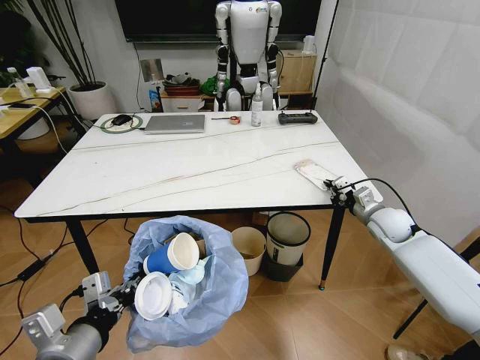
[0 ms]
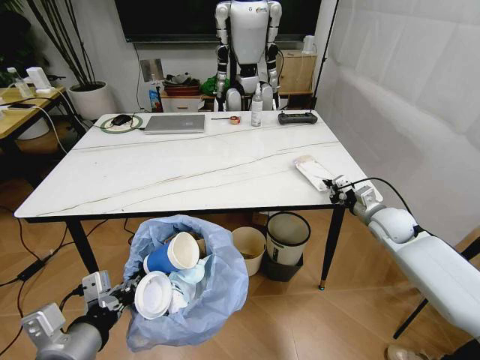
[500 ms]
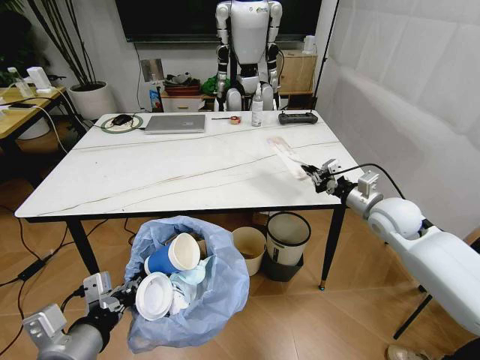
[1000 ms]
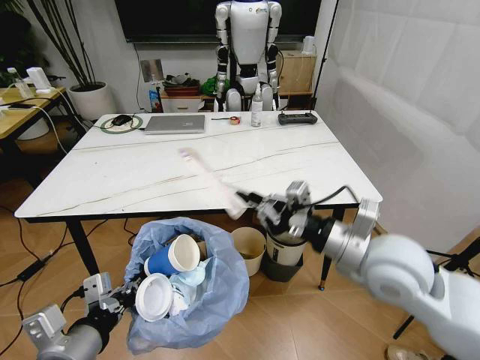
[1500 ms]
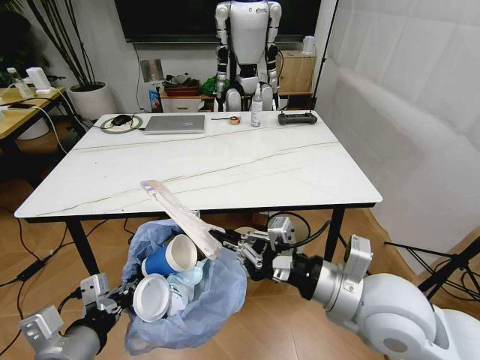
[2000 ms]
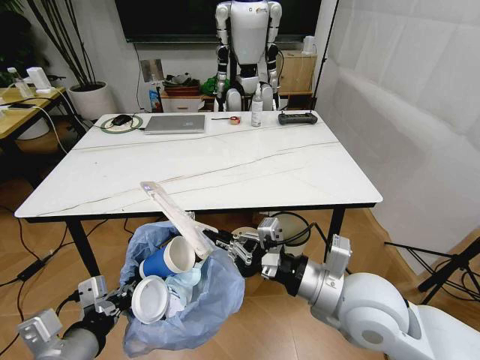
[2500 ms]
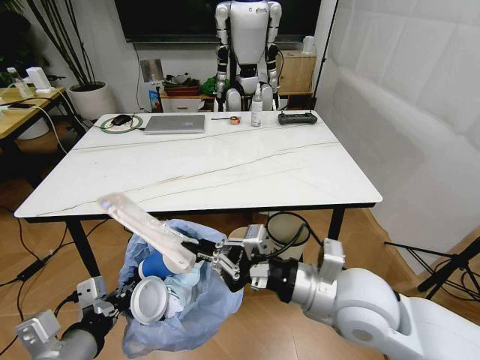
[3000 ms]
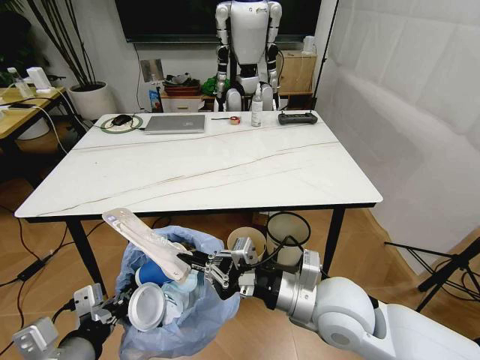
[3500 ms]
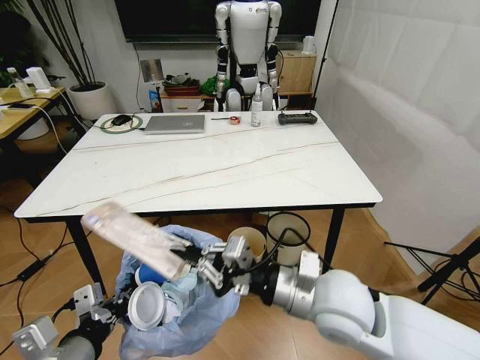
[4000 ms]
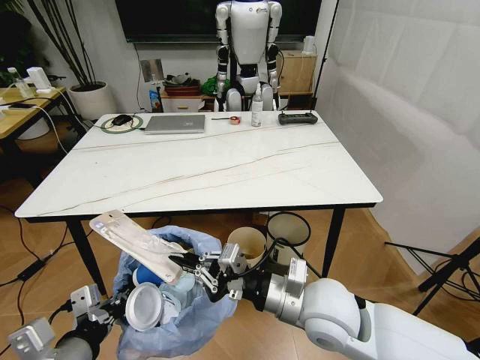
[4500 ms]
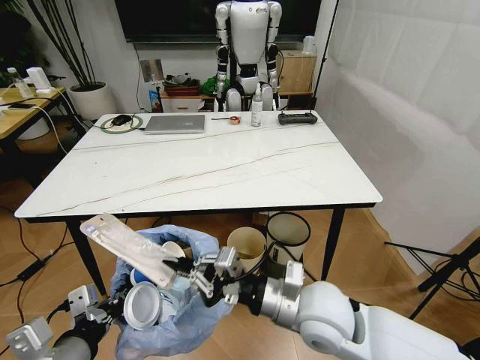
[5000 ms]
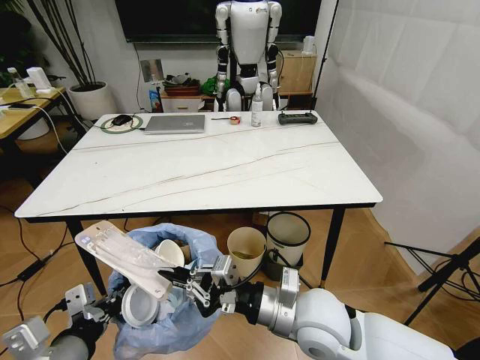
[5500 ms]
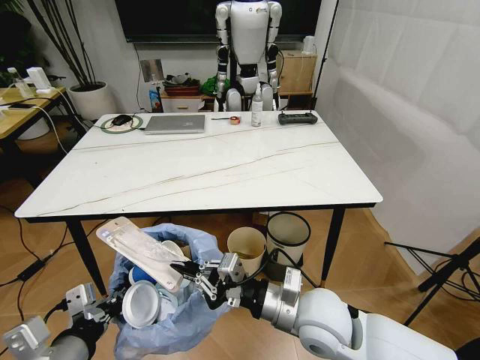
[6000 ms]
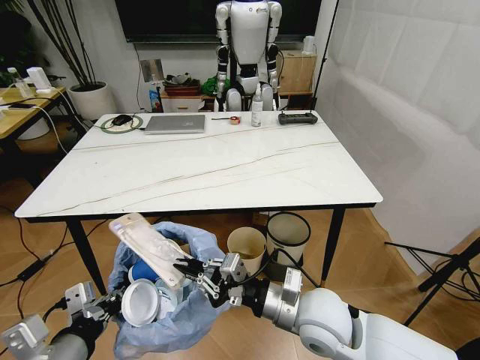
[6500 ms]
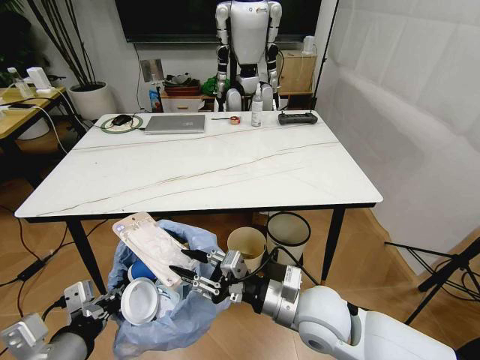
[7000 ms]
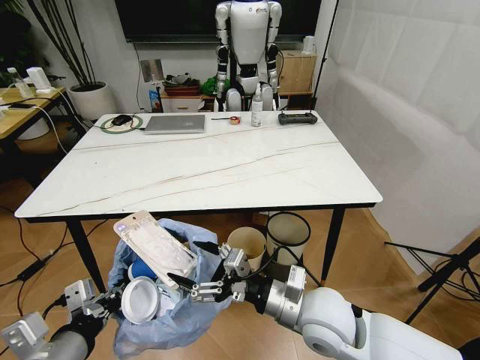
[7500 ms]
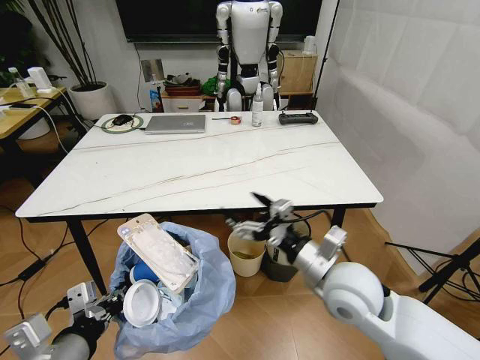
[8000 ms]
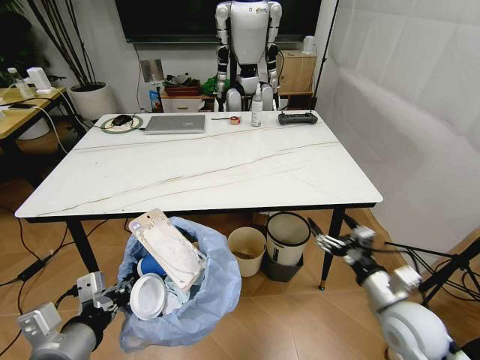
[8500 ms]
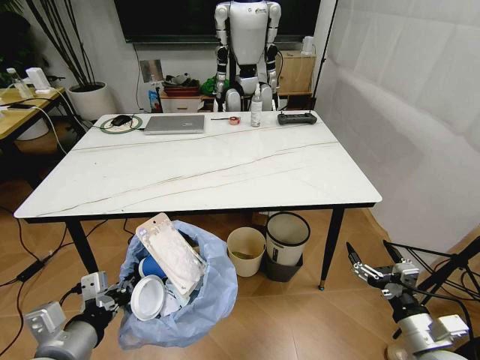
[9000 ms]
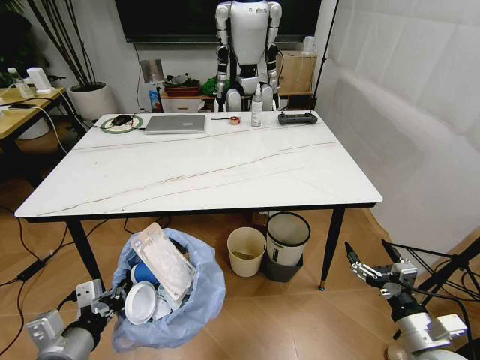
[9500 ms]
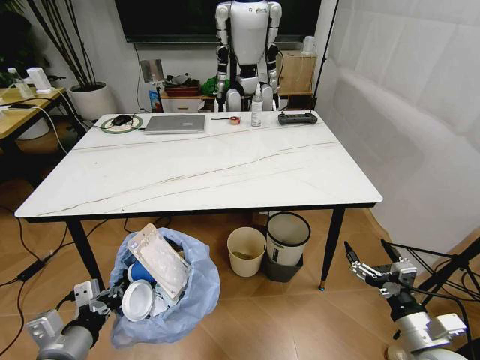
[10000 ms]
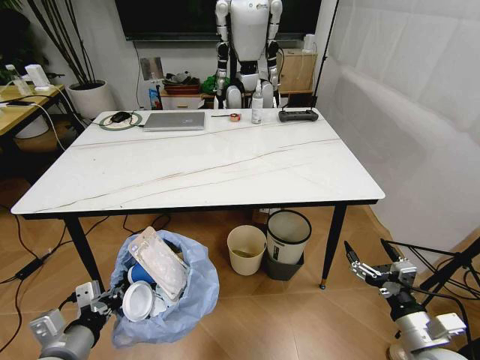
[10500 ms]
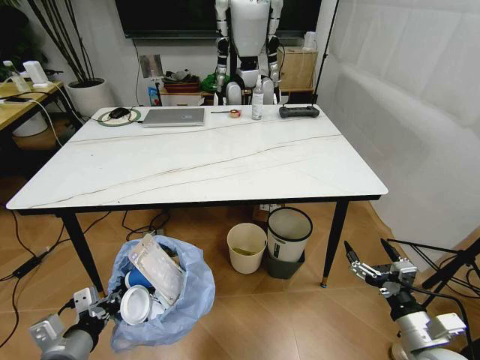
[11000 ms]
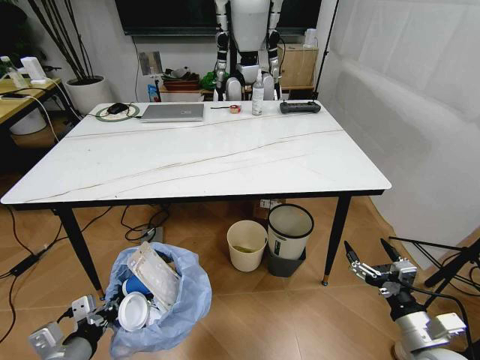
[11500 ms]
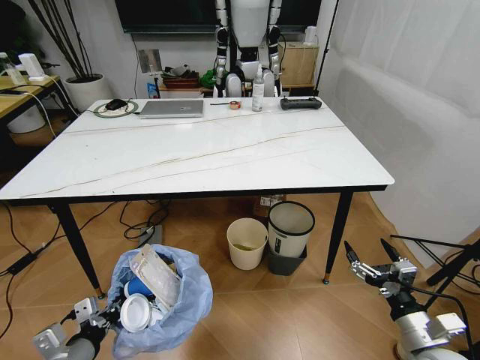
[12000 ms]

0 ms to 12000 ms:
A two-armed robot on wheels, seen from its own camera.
Task of the whole recording: Pick up the trash bin and place the trash from the table into it.
0 ms to 2000 ms: The right gripper goes approximately 35 cm backward, to the left and upward.
2000 ms to 4000 ms: The right gripper heads to the left, covering about 5 cm.
4000 ms to 6000 ms: The right gripper goes some 5 cm downward.
6000 ms to 8000 ms: The right gripper goes about 5 cm to the right, and opens its fingers.
8000 ms to 10000 ms: The left gripper is displaced downward by about 10 cm, while the right gripper is displaced to the right, downward and backward by about 25 cm.
10000 ms to 12000 ms: The left gripper goes roughly 5 cm downward.

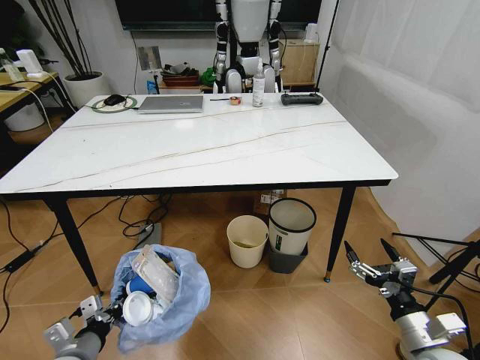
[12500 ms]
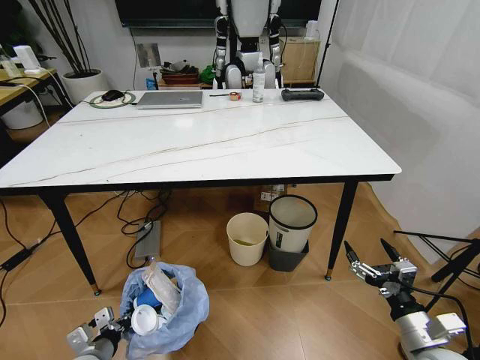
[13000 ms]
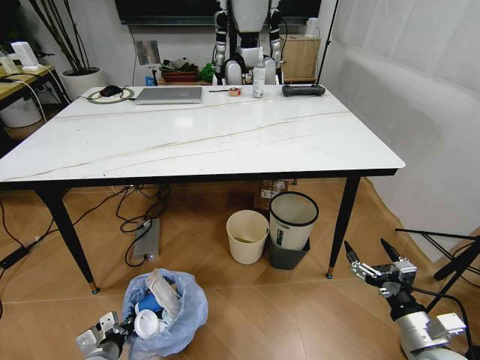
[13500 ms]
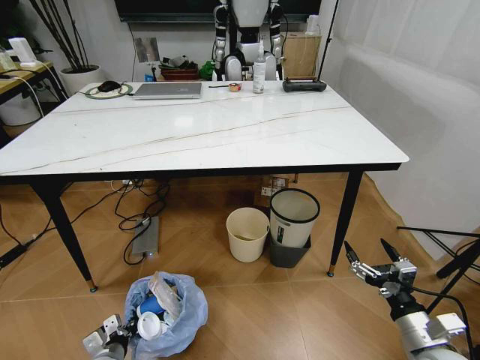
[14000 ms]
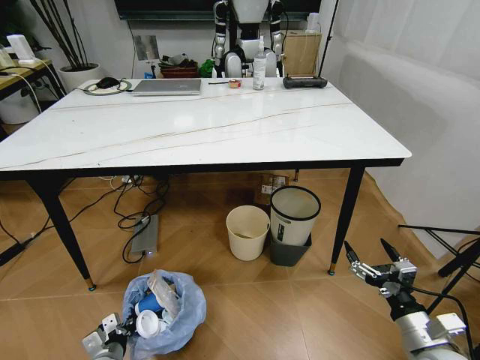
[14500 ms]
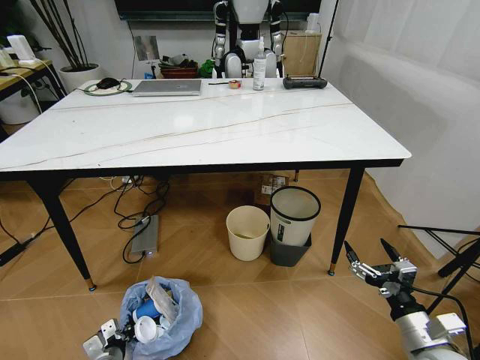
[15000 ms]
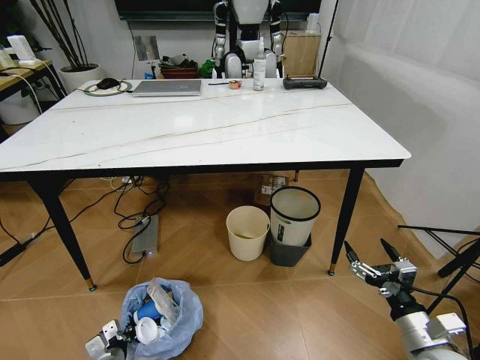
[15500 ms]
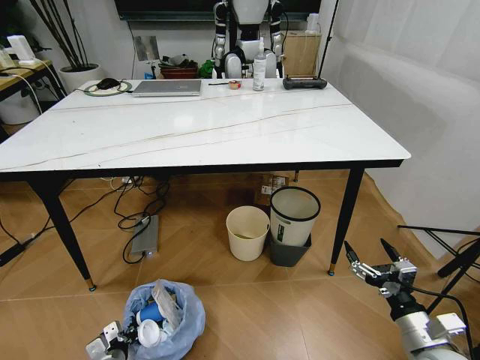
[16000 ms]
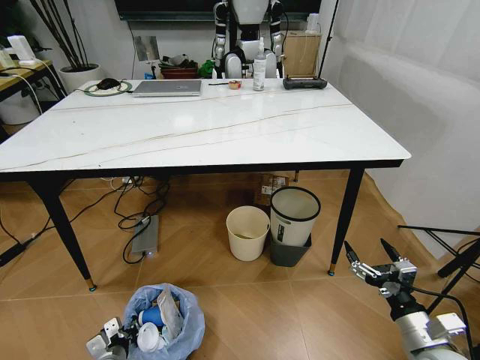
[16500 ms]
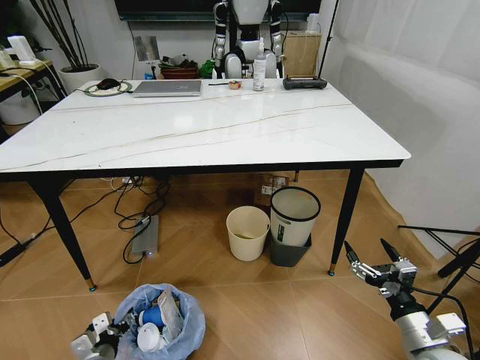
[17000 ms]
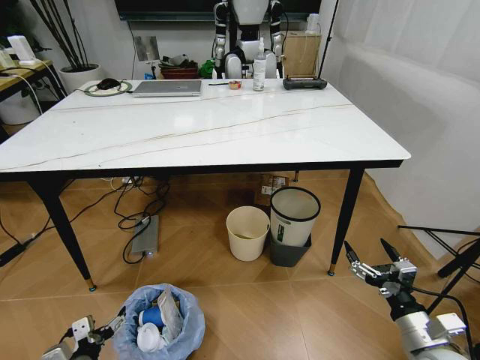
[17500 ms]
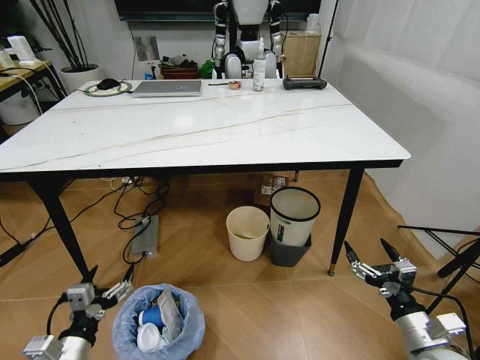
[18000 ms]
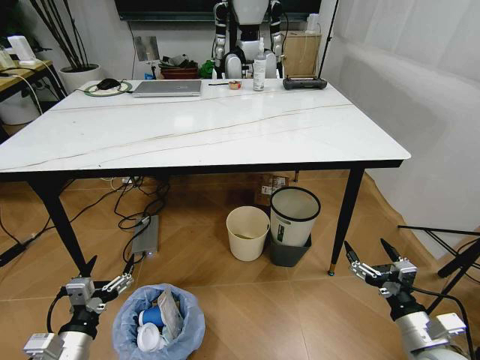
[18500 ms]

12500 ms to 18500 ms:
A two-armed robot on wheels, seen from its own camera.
Task of the whole recording: Pick up the trash bin and place the trash from the table into it.
12500 ms to 14500 ms: The left gripper moves downward, roughly 15 cm.
14500 ms to 16500 ms: There are only small adjustments of the grippers.
16500 ms to 18500 ms: The left gripper is displaced upward by roughly 20 cm, and opens up.
